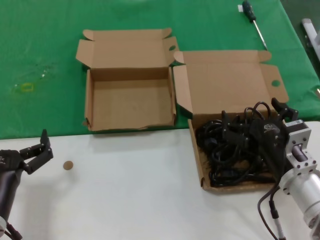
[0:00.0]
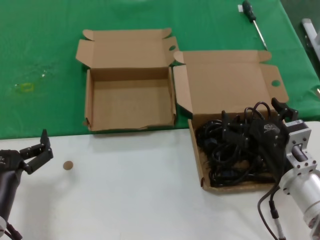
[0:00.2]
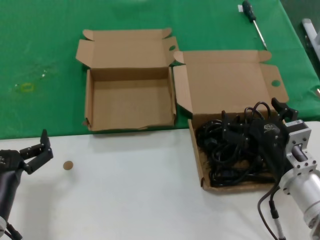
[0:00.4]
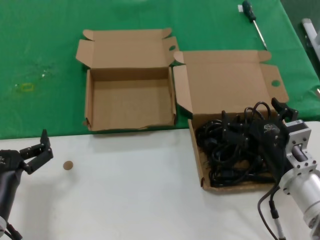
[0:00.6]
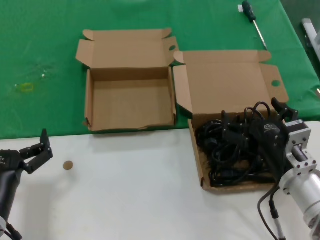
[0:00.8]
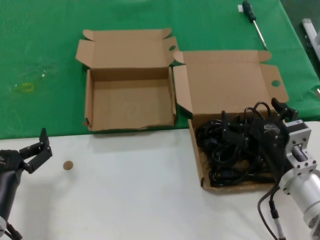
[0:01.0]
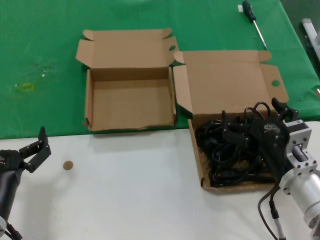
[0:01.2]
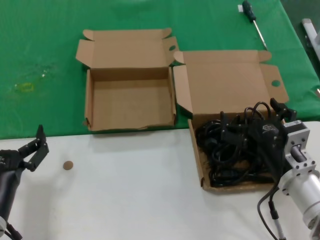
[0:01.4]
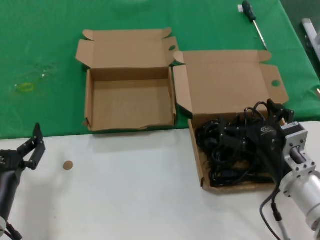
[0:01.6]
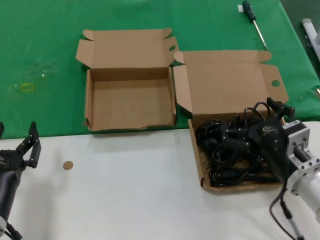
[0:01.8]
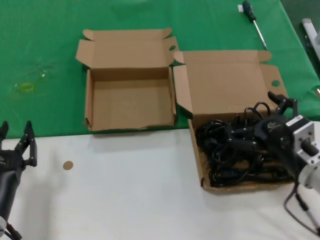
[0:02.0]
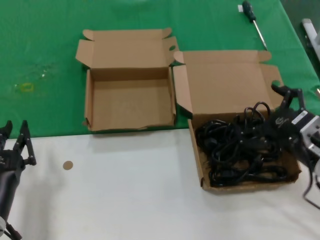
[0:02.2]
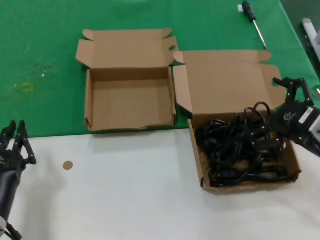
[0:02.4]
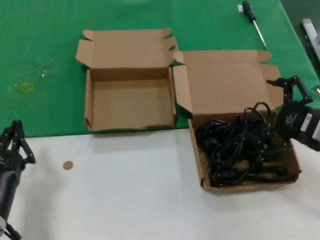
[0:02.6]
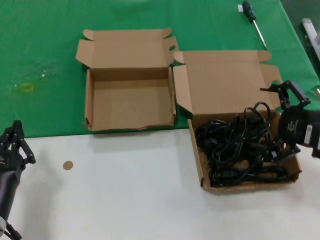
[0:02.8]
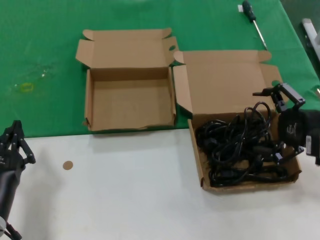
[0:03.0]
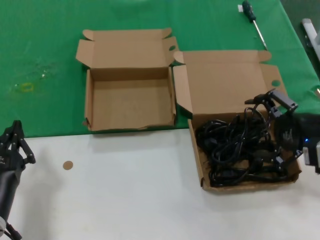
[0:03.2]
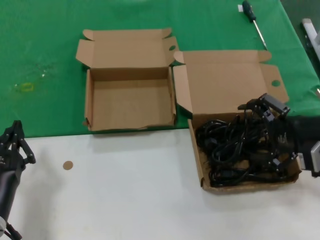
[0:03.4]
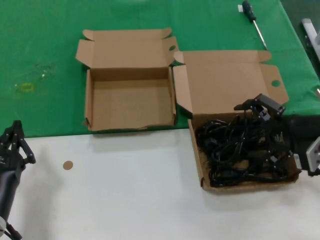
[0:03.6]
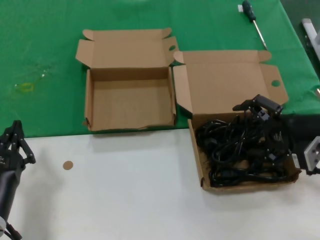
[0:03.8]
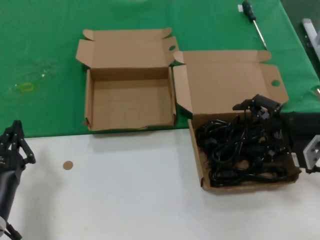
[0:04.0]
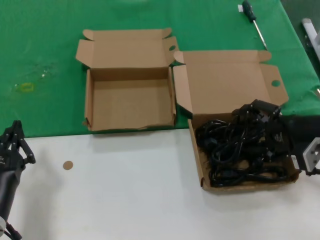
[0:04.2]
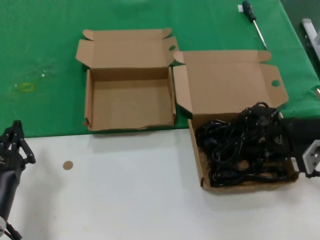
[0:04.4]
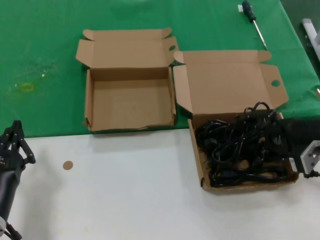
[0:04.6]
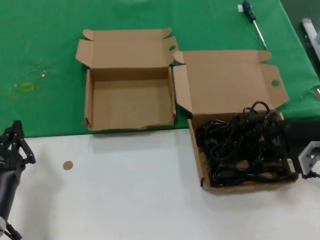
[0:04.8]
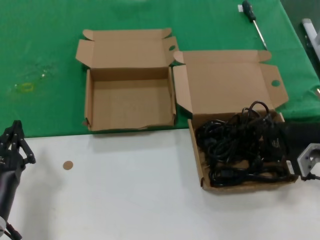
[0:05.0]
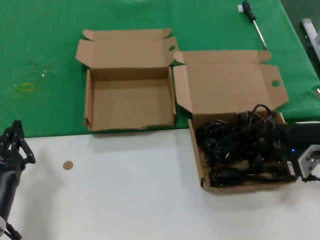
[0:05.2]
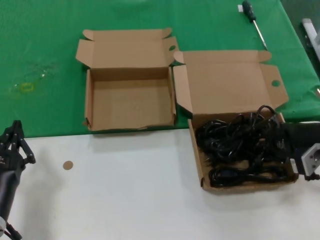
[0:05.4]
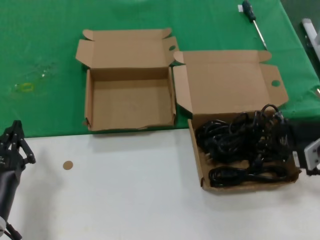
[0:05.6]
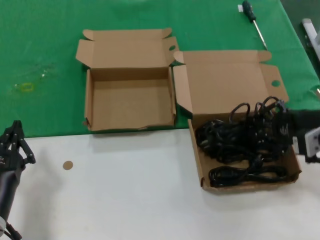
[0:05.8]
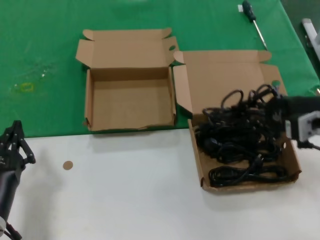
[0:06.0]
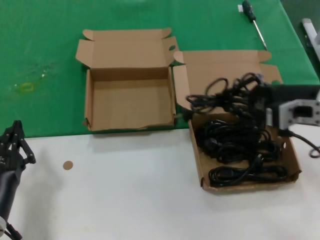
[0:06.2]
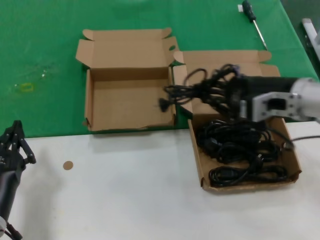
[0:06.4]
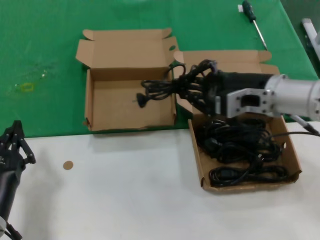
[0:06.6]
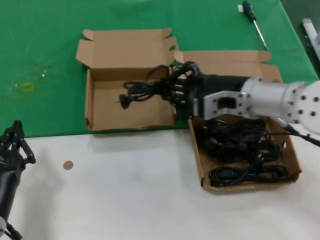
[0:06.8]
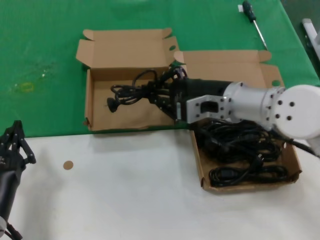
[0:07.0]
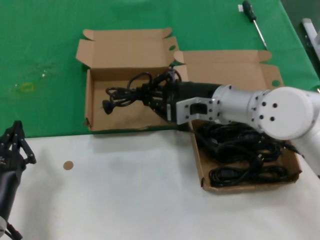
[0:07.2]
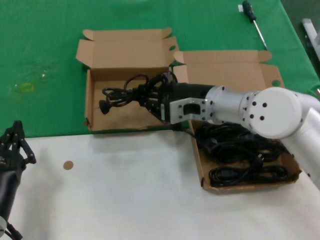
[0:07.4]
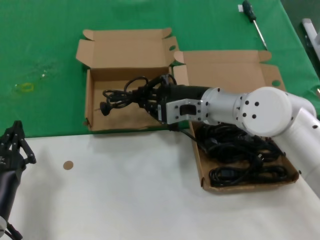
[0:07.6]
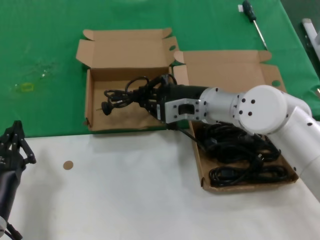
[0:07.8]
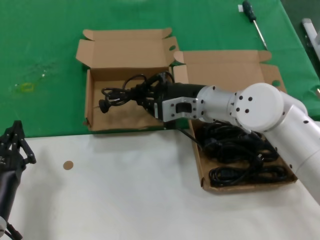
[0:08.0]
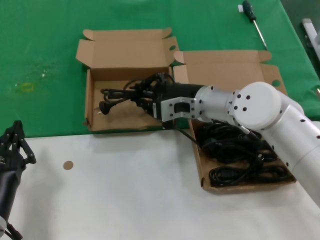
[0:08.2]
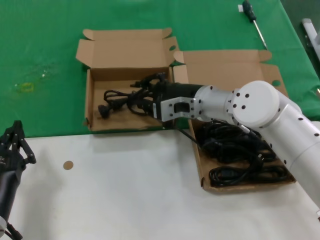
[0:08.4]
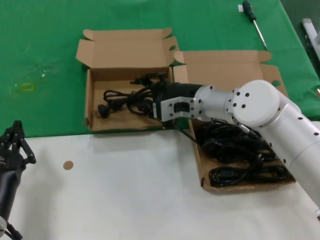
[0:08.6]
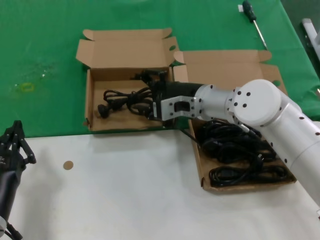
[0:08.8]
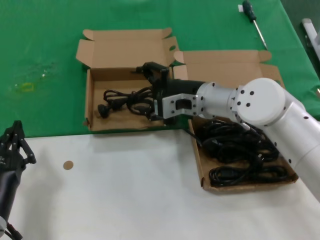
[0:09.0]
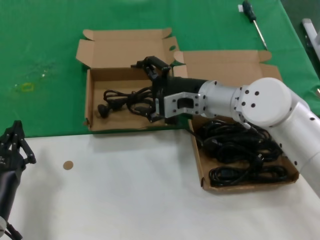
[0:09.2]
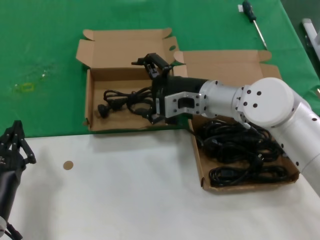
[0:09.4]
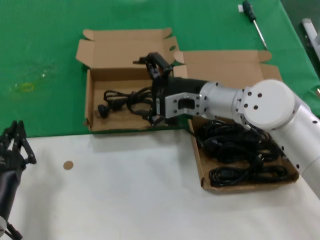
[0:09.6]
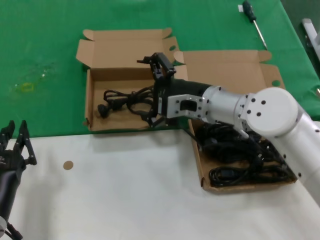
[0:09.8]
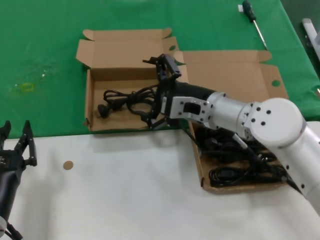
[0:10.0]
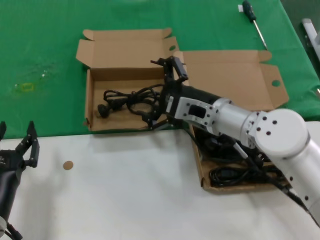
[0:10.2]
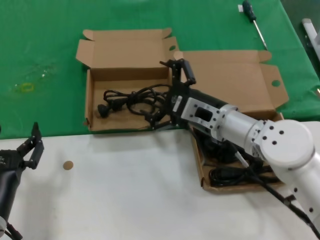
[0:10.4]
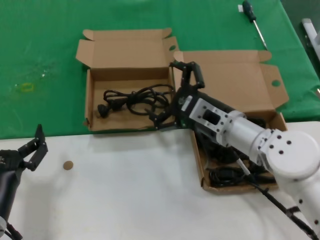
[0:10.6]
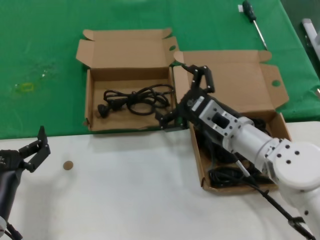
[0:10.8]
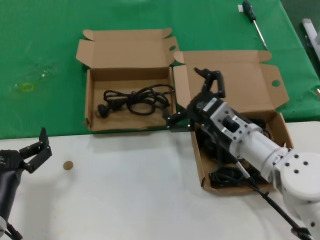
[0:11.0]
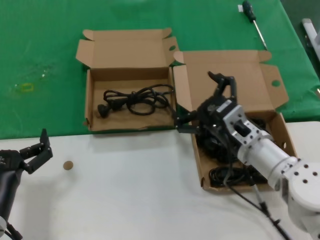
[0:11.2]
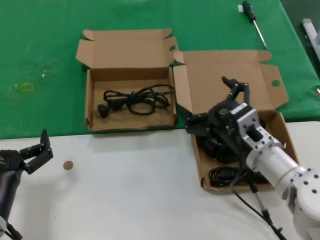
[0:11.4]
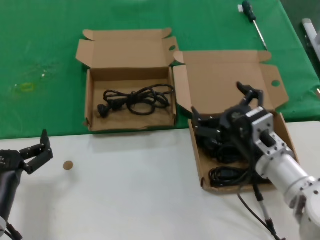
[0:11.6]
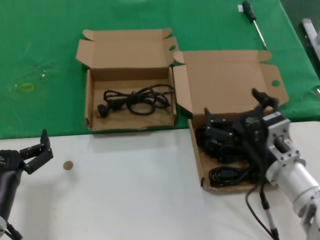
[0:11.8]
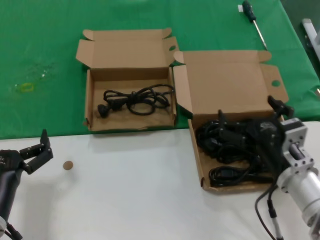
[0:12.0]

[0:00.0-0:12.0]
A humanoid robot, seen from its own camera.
Task of the whole recording: take the parts from the box containing them and put them into an empty box.
Step, 0:00.0 to 0:05.2: Grasp the data cable.
Step, 0:05.4 to 0:09.0: Place the data cable in the another box.
0:00.0 to 0:01.6: Both hands stay about where they are.
0:01.6 to 0:03.0: The right hand heads to the right and upward, covering some 15 cm.
0:04.4 to 0:06.0: The right hand changes place by about 5 cm.
0:06.0 to 0:07.6: The right hand heads to the left and forward, covering some 25 cm.
0:07.6 to 0:09.0: The hands move only a little.
0:09.0 to 0:10.4: The right hand shifts some 5 cm backward.
0:10.4 to 0:12.0: The right hand moves backward, to the right and downward, approximately 15 cm.

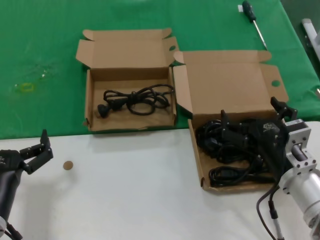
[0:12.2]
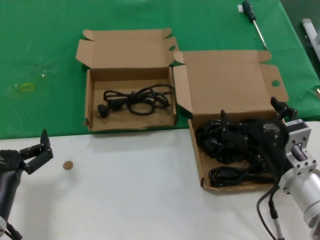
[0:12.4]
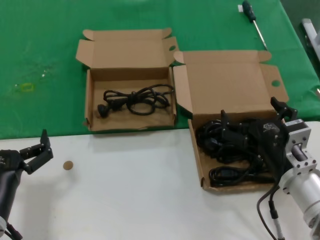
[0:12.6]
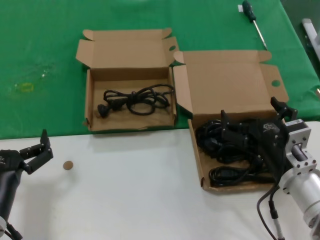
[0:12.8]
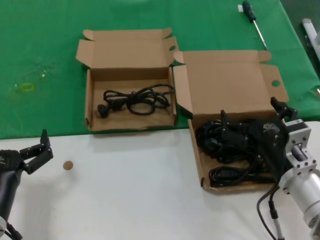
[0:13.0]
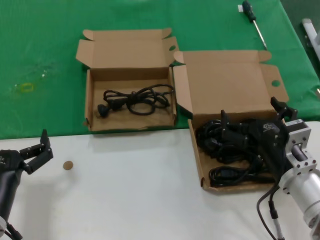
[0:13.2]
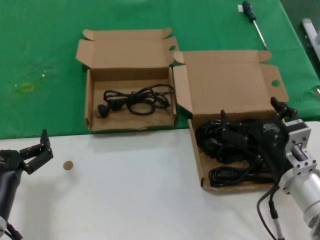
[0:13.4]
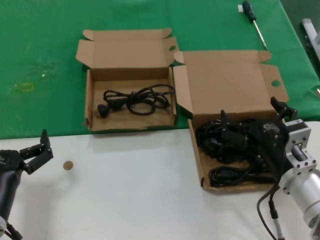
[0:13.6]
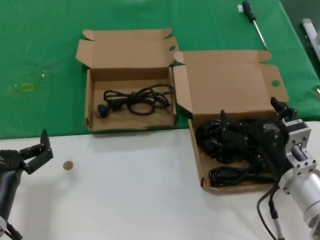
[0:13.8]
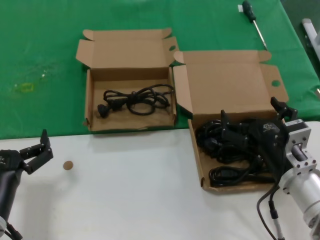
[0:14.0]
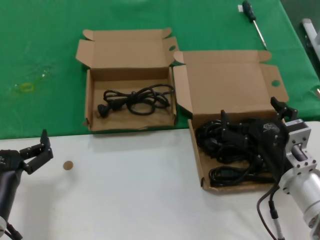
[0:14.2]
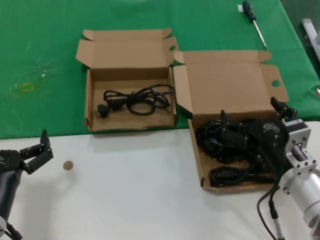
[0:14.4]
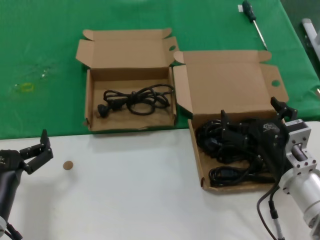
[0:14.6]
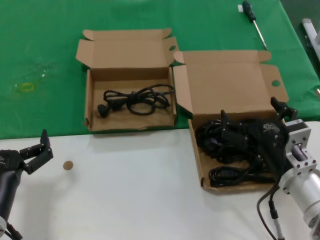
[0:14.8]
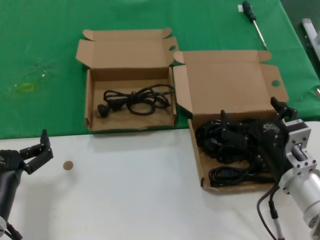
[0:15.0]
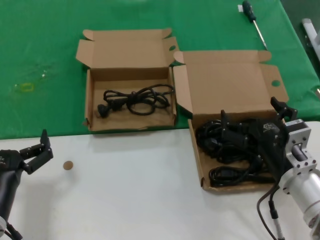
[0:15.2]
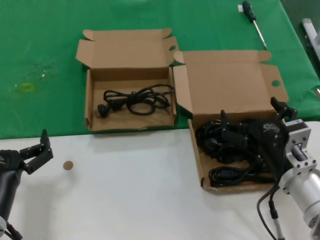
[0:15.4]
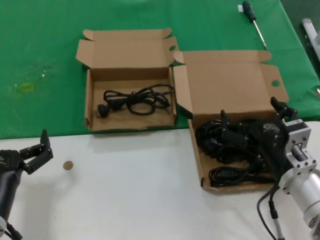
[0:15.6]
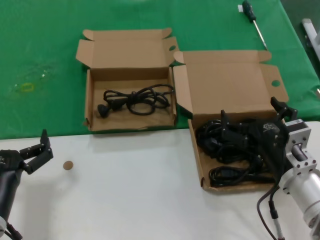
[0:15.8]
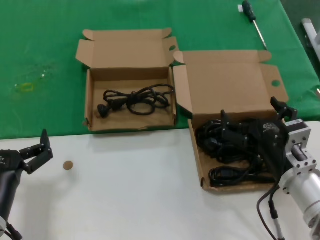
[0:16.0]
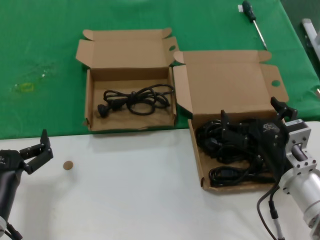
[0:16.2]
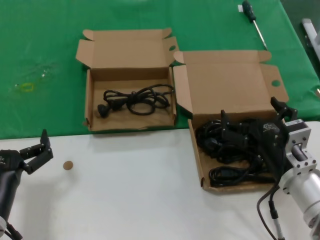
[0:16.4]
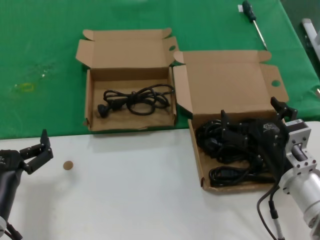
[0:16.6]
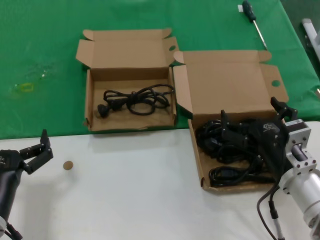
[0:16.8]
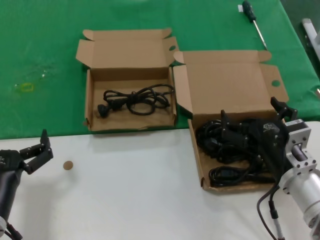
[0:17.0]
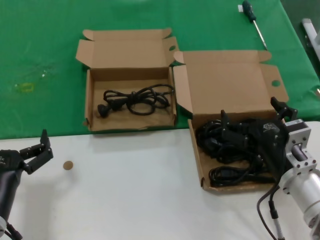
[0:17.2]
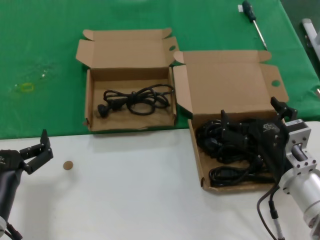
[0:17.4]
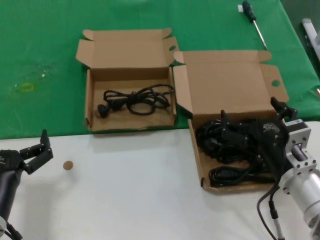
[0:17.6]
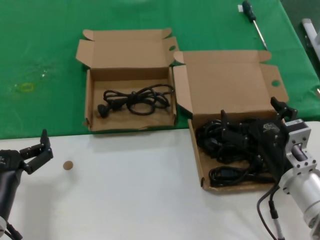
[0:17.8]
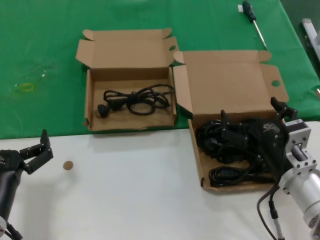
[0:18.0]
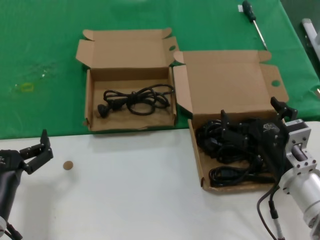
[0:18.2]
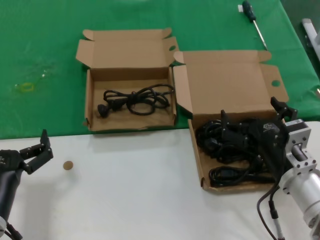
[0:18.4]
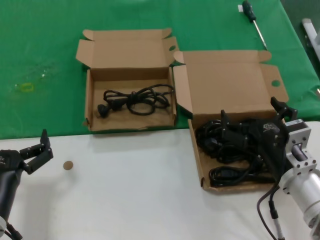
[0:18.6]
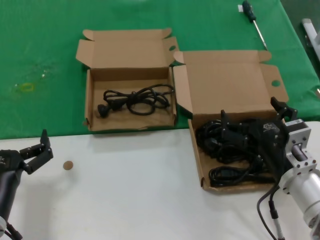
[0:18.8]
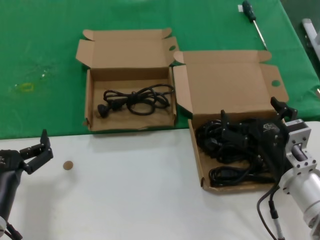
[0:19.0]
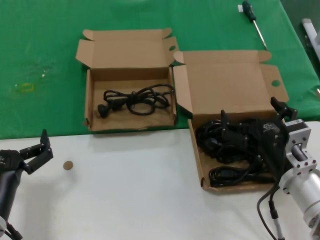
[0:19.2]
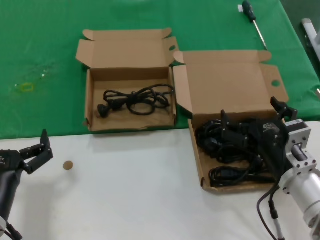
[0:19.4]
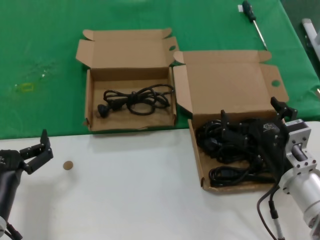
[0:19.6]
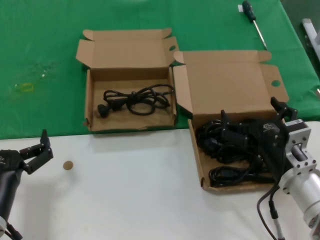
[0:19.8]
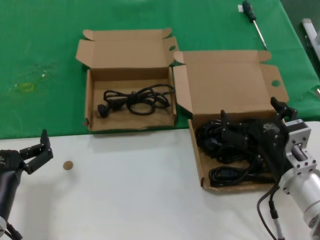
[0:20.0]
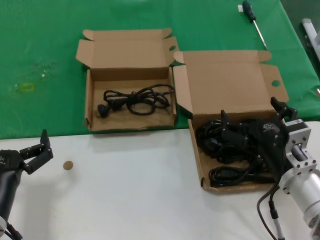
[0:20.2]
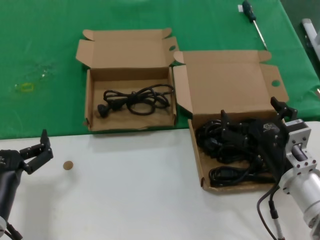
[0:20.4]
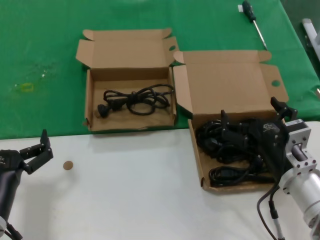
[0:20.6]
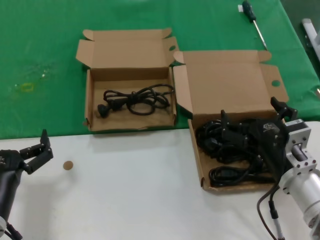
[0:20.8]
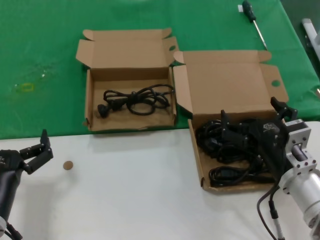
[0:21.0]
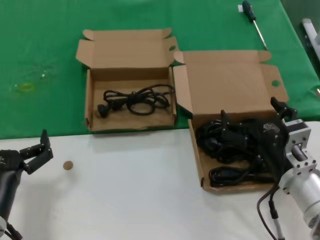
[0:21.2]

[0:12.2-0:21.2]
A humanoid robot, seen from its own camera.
Task of the whole recording: take the parts from the box containing them and put them into an empty box.
0:12.2 to 0:21.2: Both hands stay put.

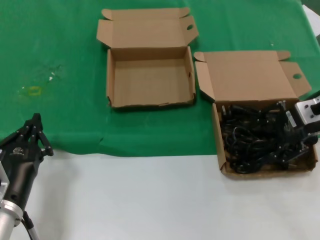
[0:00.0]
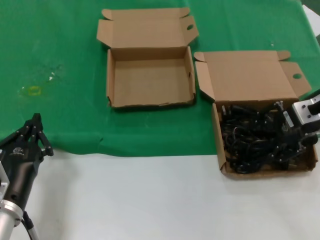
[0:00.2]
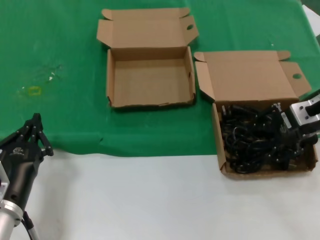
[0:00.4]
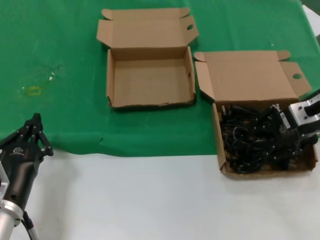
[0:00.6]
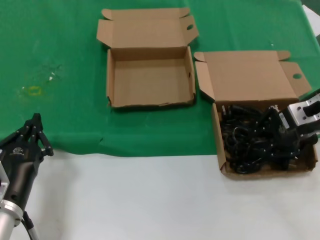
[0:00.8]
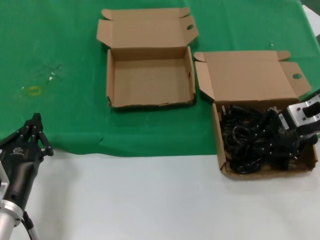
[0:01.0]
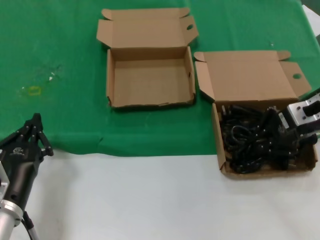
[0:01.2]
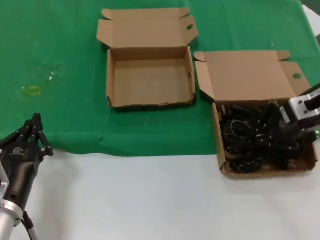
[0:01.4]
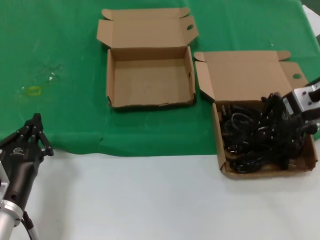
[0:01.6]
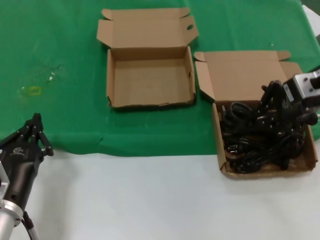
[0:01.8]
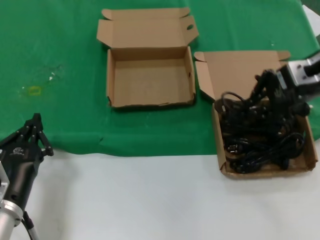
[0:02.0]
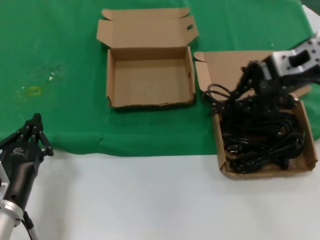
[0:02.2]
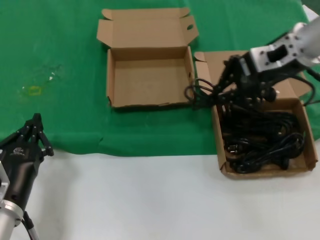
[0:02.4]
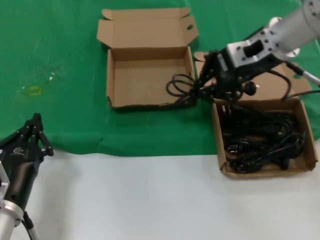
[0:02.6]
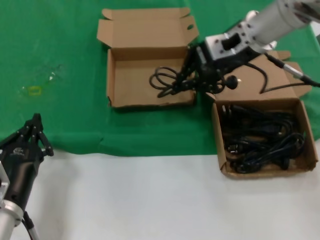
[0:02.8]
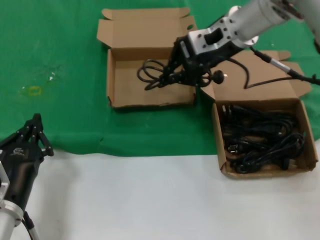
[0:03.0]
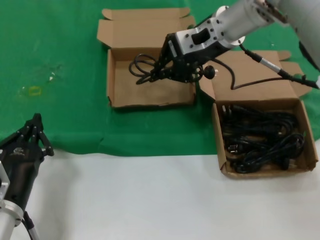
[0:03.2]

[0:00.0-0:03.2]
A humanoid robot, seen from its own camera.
Task of the whole recording: take the parts from the box containing them and put them into an empty box.
0:00.0 to 0:01.6: The hands make only small movements.
0:01.6 to 0:03.2: The right hand shifts roughly 20 cm to the left and forward.
